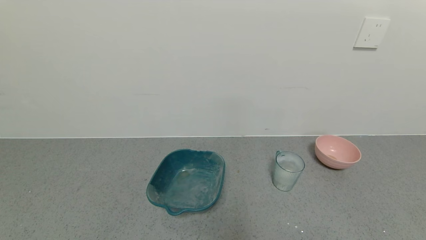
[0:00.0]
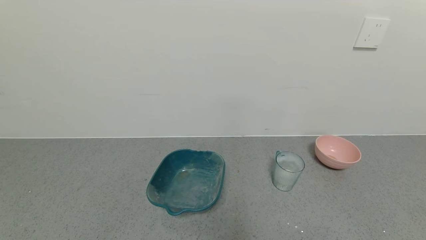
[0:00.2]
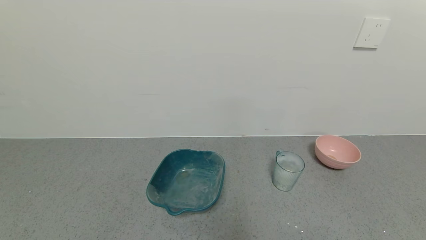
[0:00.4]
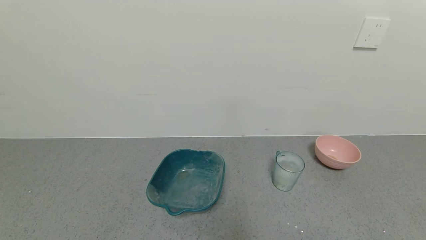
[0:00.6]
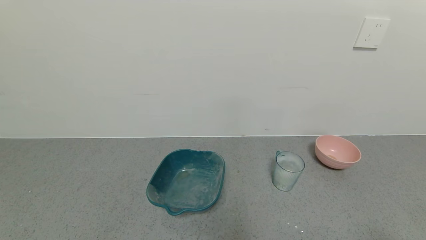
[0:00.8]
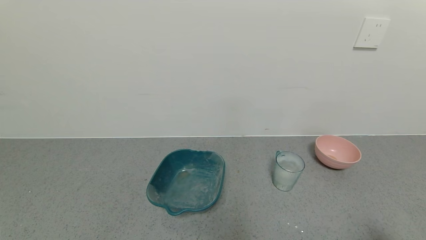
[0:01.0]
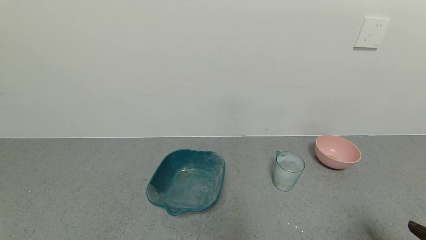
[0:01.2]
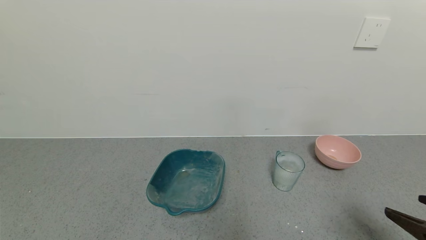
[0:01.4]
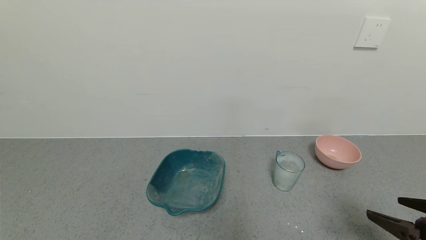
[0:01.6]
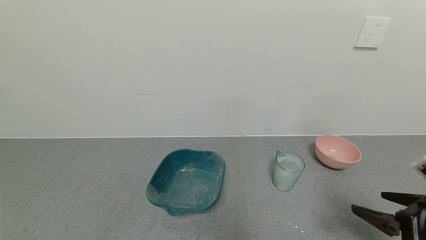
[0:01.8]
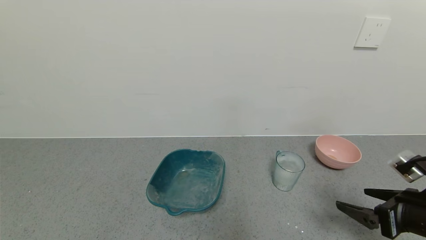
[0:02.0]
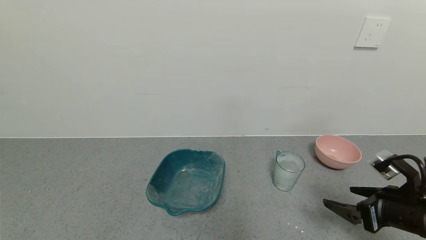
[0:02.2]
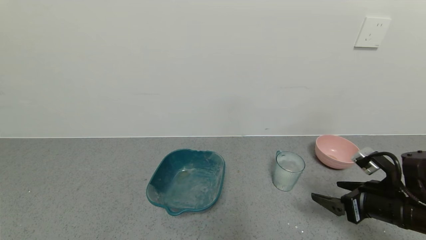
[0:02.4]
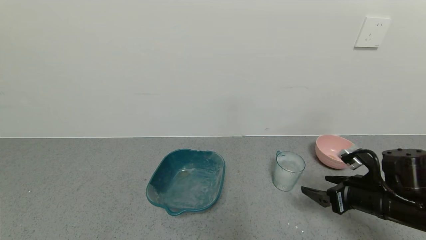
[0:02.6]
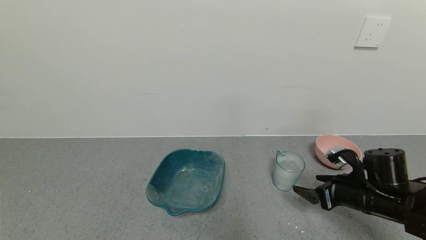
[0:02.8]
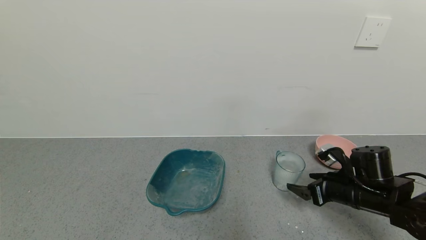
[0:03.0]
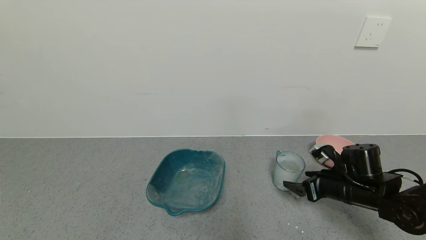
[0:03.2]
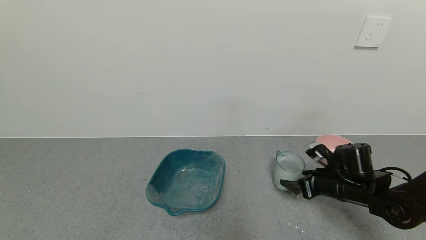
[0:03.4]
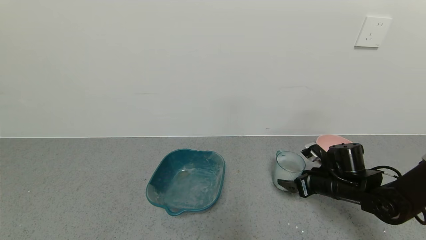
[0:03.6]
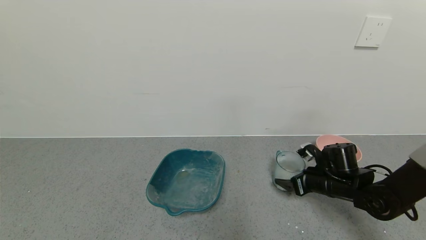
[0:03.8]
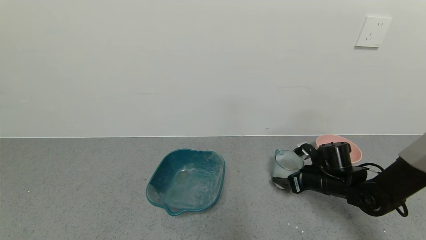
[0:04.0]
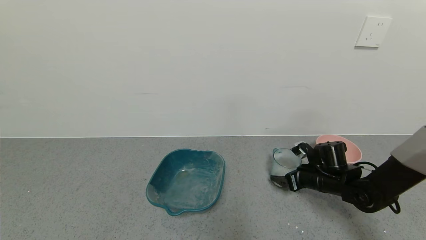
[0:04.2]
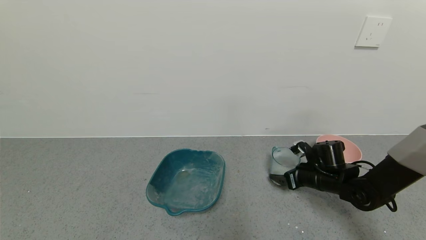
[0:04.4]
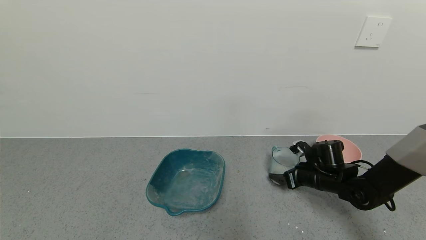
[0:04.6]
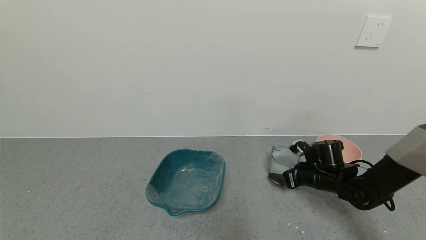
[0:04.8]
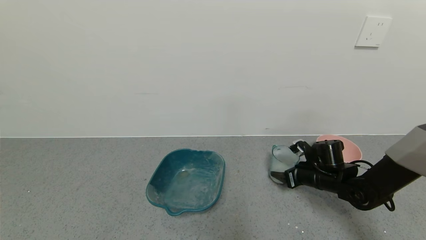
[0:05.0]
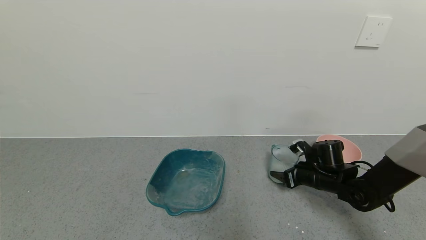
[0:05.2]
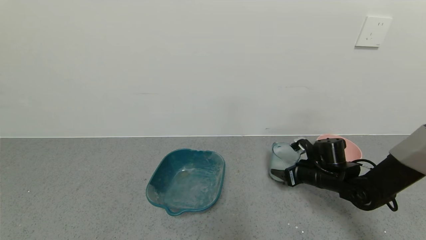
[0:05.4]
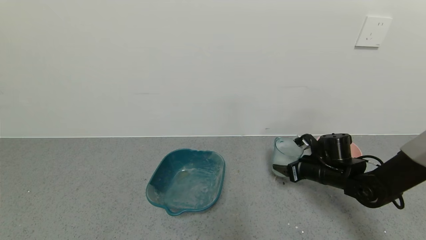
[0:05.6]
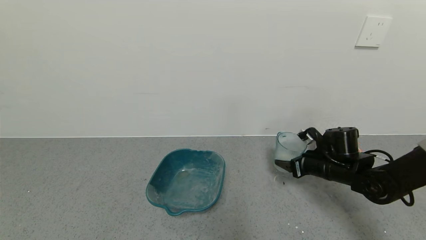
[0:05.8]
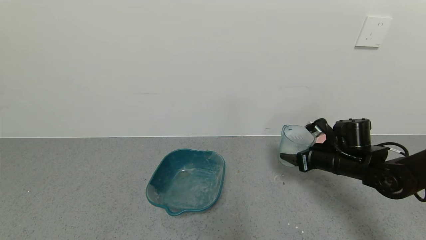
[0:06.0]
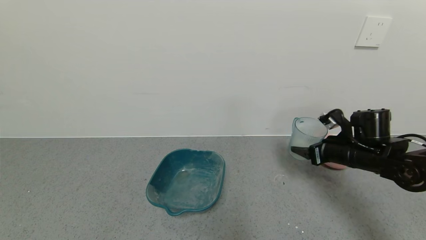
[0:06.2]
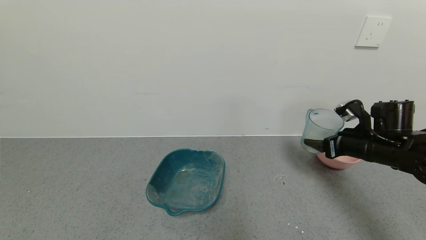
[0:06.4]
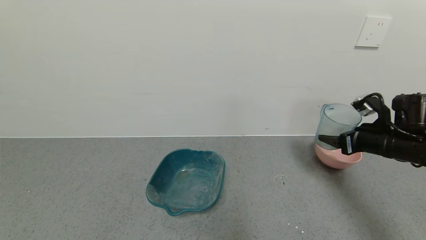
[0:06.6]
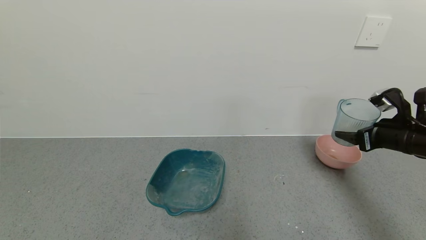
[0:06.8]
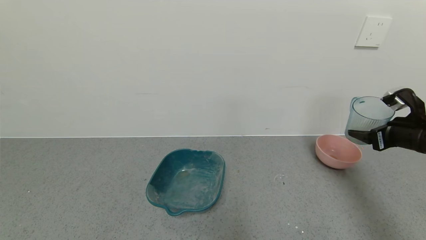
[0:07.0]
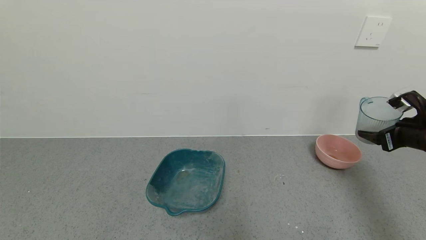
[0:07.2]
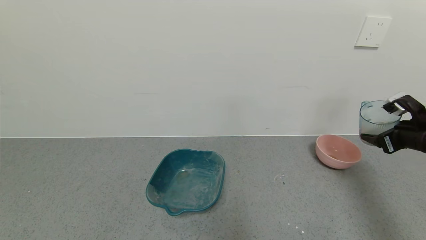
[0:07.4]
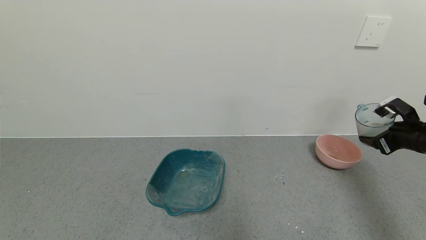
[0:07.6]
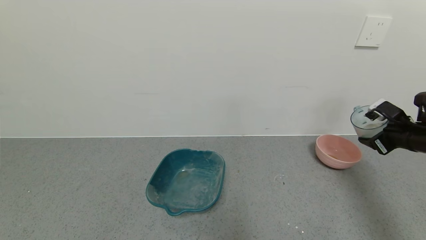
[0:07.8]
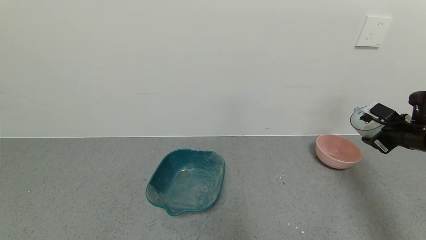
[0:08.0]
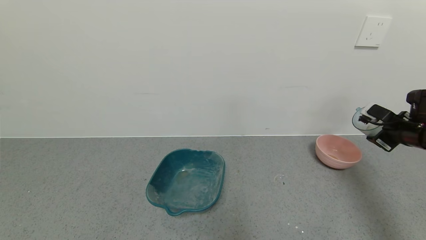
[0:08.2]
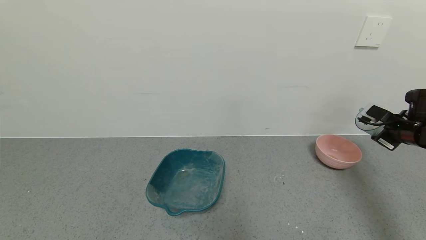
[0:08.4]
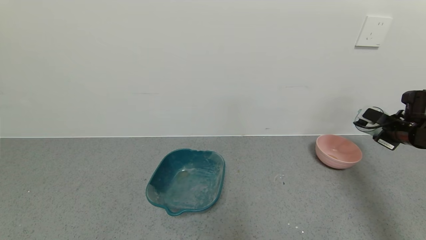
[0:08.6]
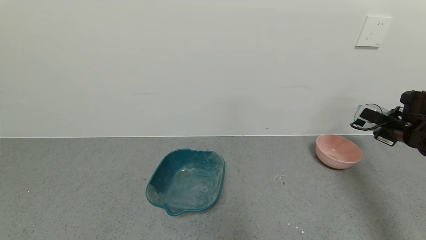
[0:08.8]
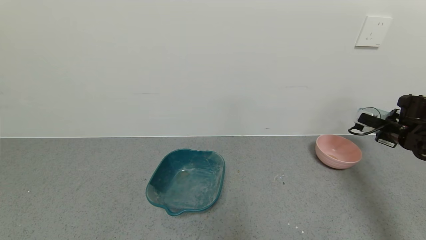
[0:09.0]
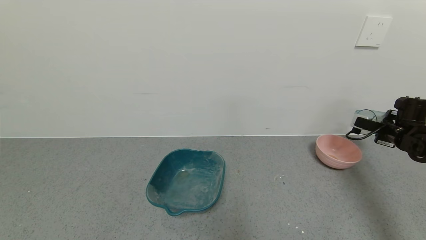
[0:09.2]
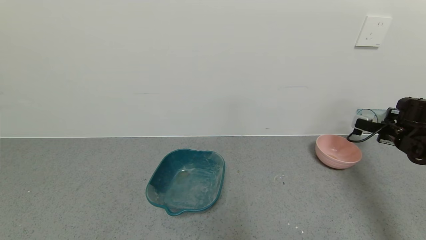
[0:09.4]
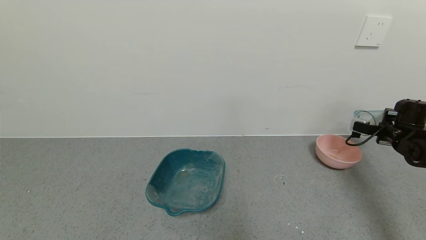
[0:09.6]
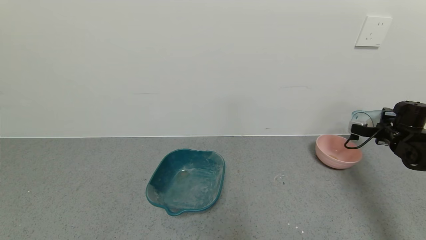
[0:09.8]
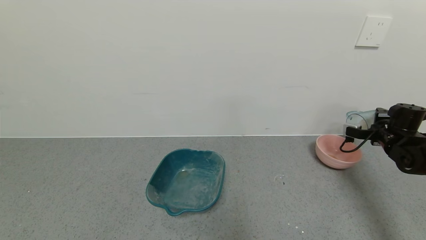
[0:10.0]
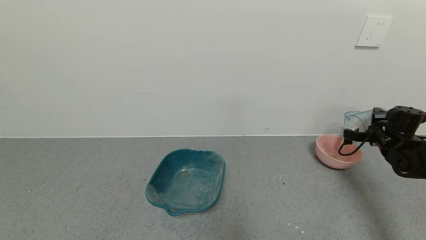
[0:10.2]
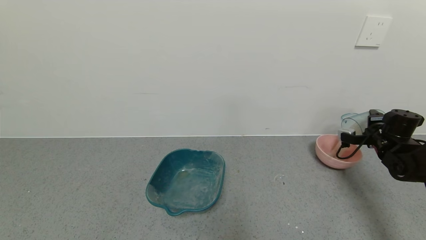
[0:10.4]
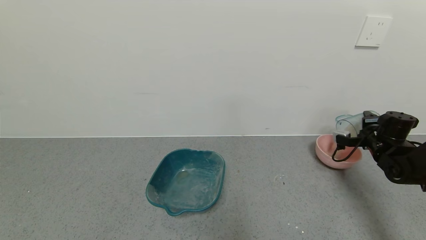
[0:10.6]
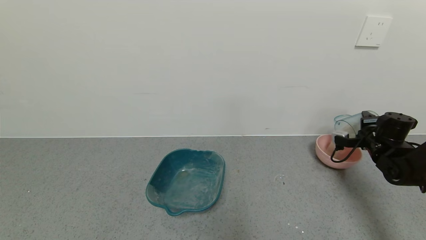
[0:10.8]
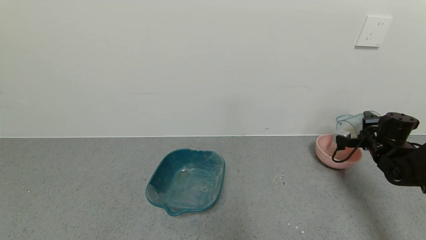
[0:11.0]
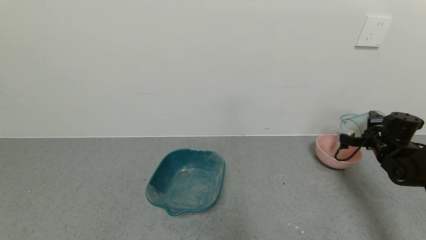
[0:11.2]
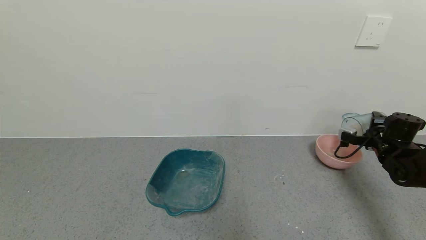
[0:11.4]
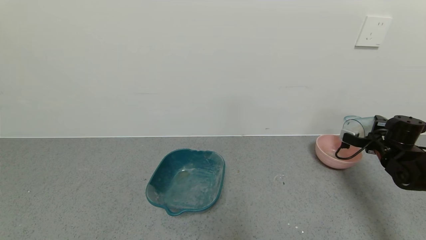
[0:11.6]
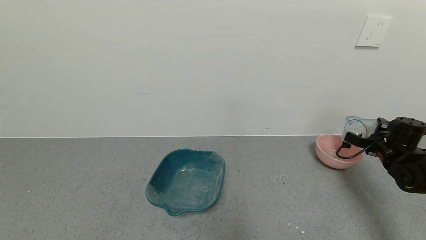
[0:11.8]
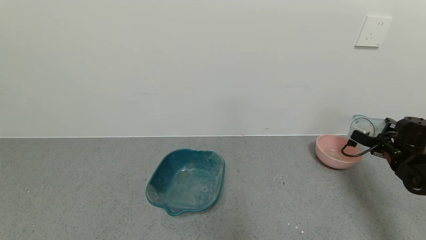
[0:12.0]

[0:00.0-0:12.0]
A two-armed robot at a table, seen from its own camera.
Task of the whole recording: use a gripper to pick up the cup and pour the powder into a bowl or tray.
Step, 0:00.0 to 0:04.8: Grasp the glass of powder with the right gripper.
0:00.0 to 0:01.6: The right gripper goes some 15 cm forward and upward.
0:01.6 to 0:03.0: The right gripper shifts approximately 20 cm forward, downward and to the left.
0:03.0 to 0:04.4: The right gripper heads forward, covering approximately 10 cm.
0:04.4 to 0:06.0: The right gripper goes about 10 cm upward, and closes its fingers.
0:06.0 to 0:07.6: The right gripper shifts approximately 15 cm to the right and upward.
0:07.6 to 0:09.0: The right gripper shifts approximately 5 cm forward.

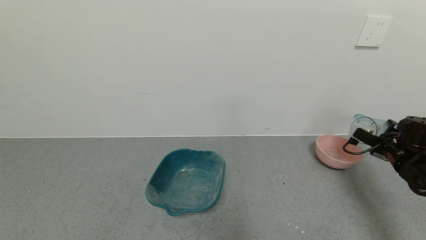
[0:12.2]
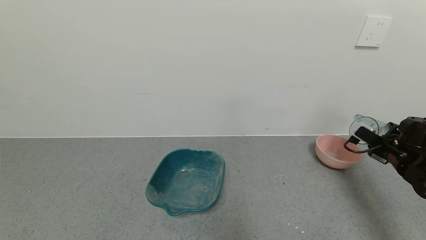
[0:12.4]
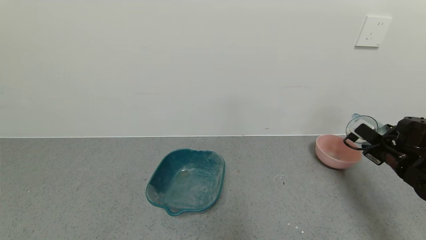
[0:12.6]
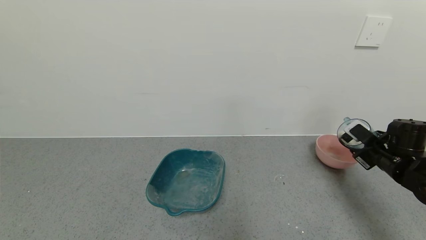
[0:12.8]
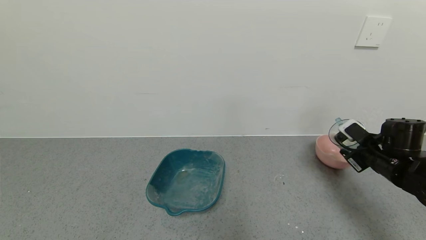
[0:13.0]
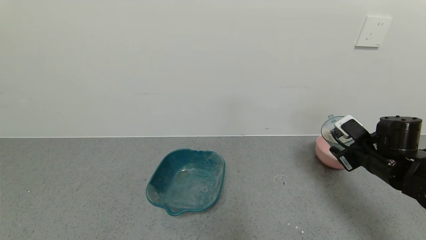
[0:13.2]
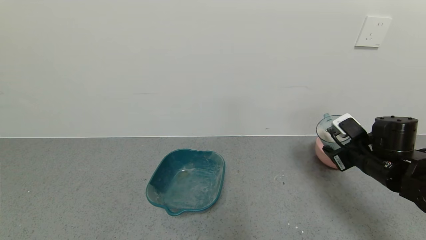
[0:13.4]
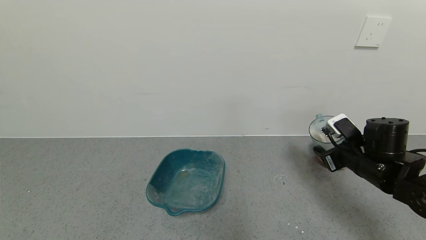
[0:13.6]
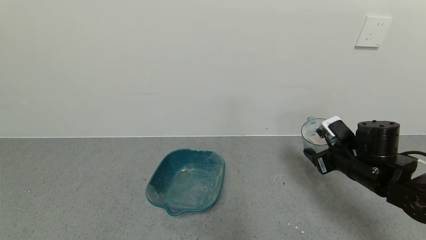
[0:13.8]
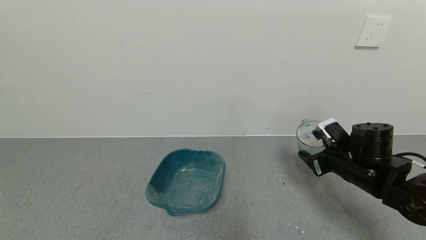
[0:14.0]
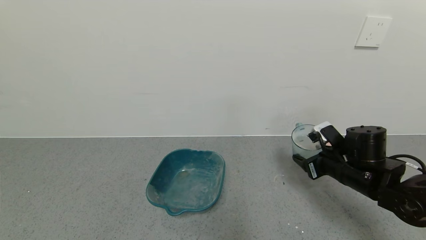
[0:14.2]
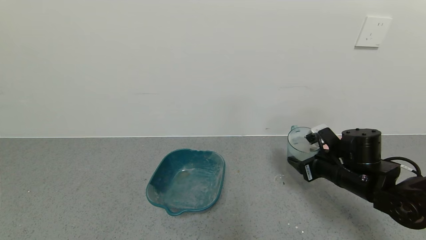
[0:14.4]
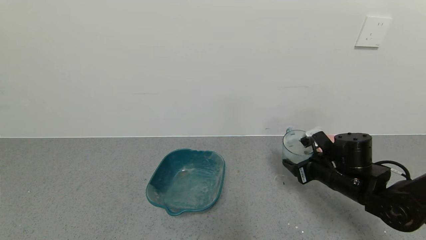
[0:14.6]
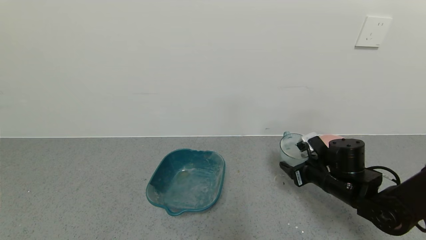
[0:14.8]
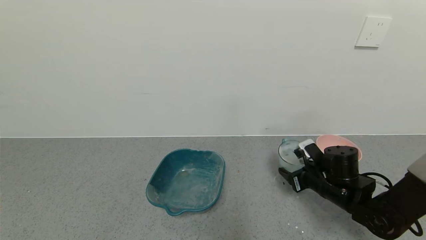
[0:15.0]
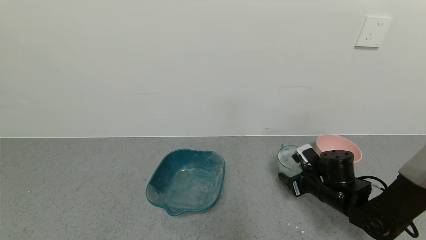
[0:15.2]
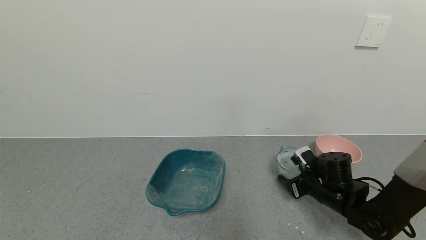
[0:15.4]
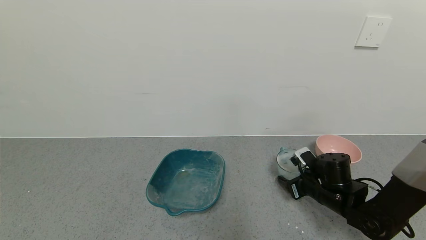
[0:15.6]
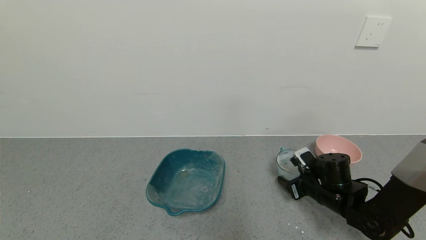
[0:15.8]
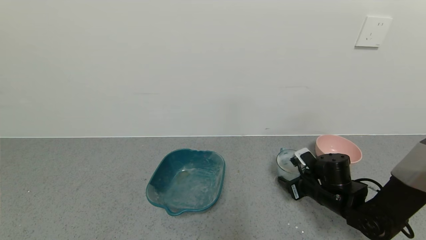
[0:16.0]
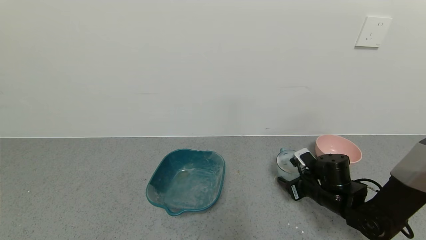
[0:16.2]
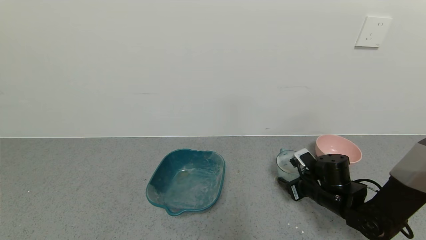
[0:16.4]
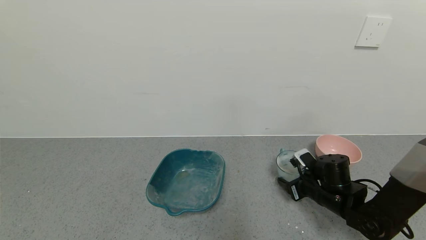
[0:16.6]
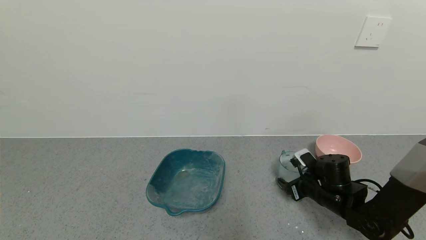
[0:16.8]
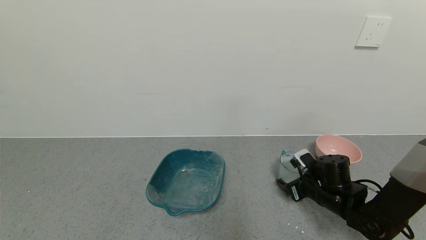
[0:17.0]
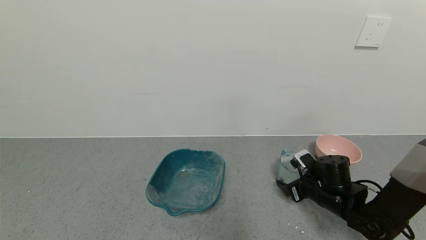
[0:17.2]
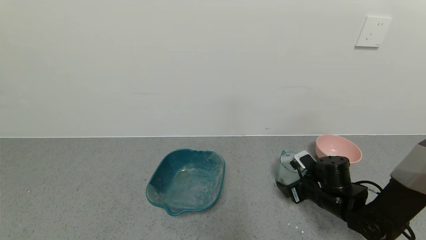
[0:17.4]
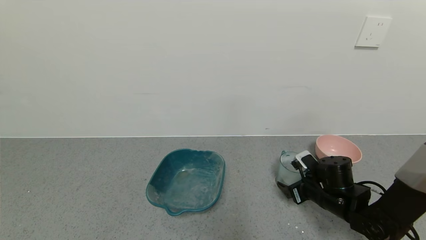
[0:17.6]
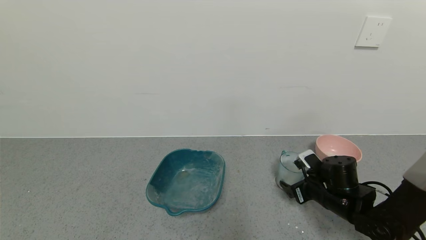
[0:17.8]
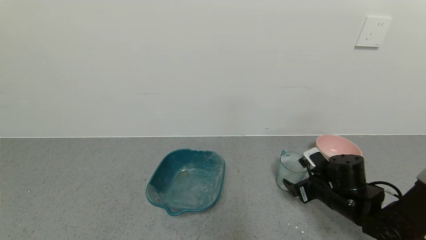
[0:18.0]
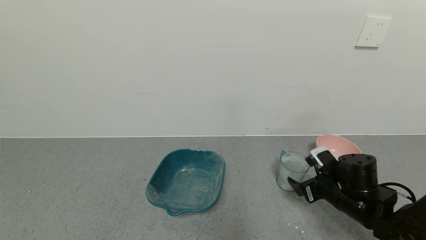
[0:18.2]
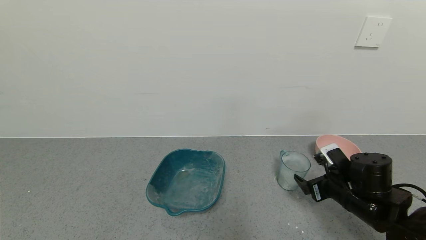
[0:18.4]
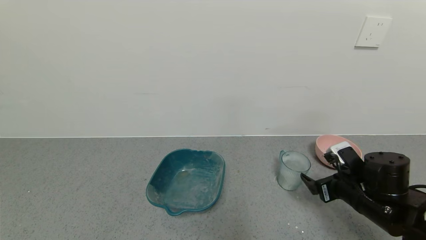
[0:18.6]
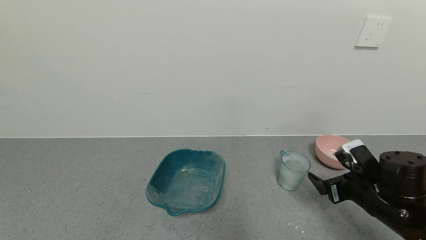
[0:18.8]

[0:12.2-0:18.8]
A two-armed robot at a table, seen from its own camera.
Task of the whole recording: use a gripper to pick up the cup and pour the powder into a bowl or tray.
Step, 0:12.8 to 0:18.0: Place the glass cup down with the right gripper.
0:12.2 to 0:13.8: The right gripper goes some 15 cm to the left.
0:13.8 to 0:15.4: The right gripper heads downward, covering about 10 cm.
0:15.4 to 0:17.2: The right gripper opens up.
0:17.2 to 0:18.8: The right gripper goes about 10 cm upward and backward.
